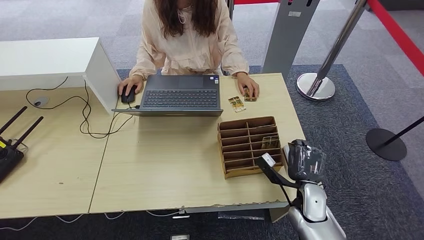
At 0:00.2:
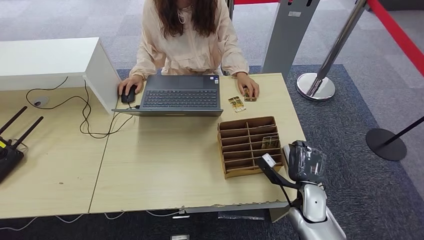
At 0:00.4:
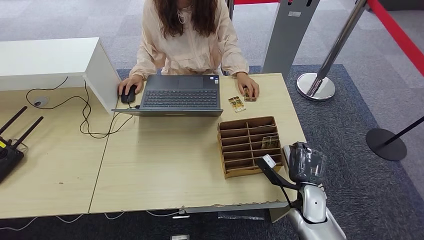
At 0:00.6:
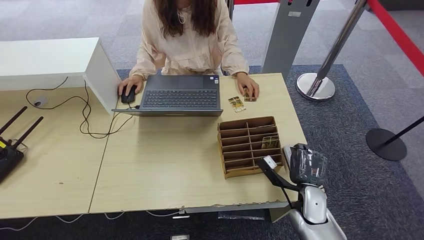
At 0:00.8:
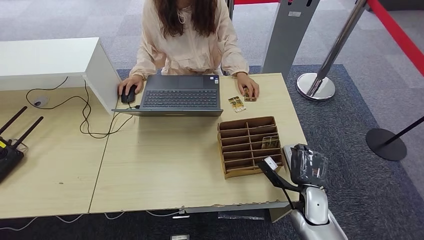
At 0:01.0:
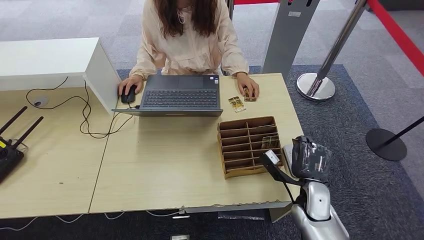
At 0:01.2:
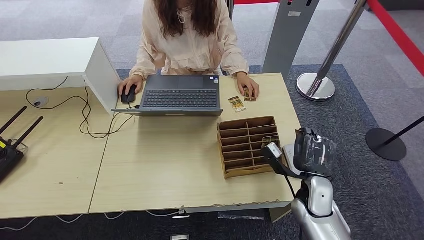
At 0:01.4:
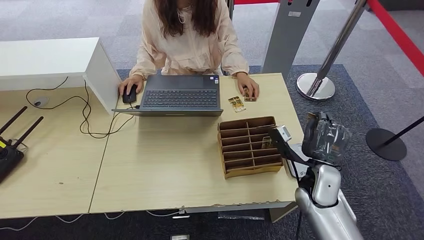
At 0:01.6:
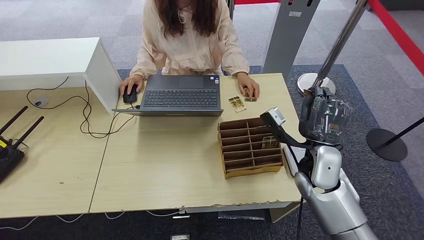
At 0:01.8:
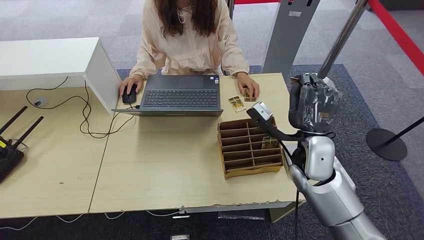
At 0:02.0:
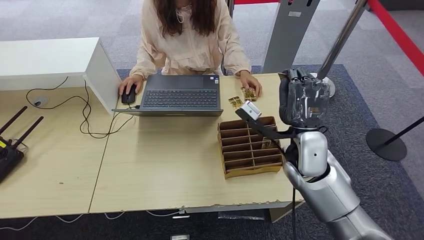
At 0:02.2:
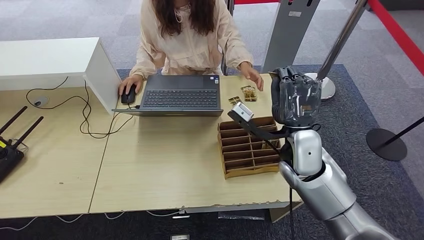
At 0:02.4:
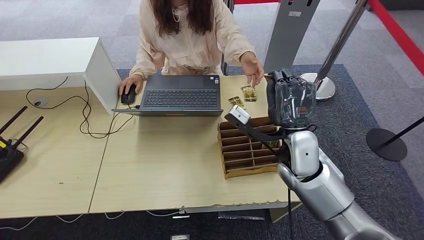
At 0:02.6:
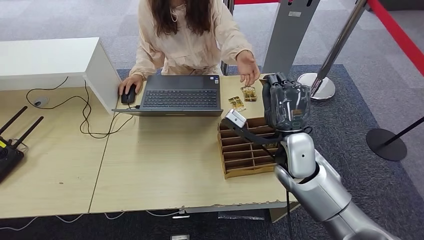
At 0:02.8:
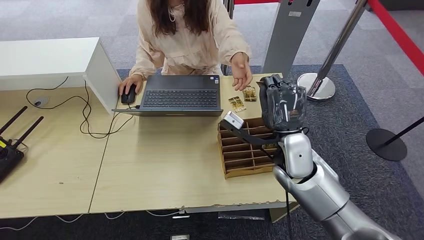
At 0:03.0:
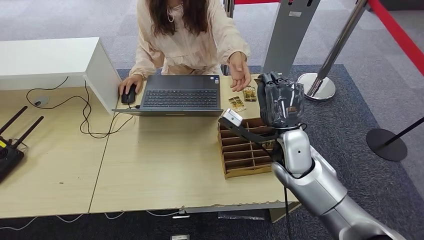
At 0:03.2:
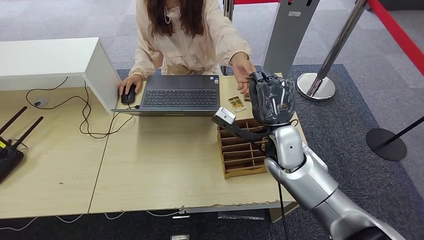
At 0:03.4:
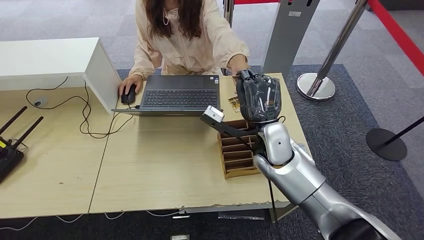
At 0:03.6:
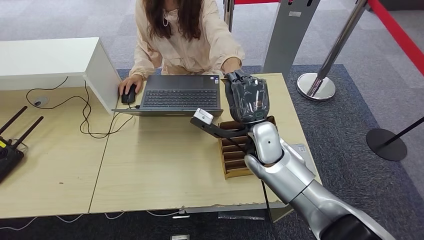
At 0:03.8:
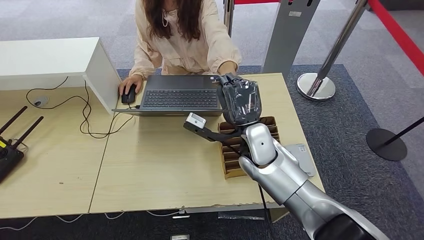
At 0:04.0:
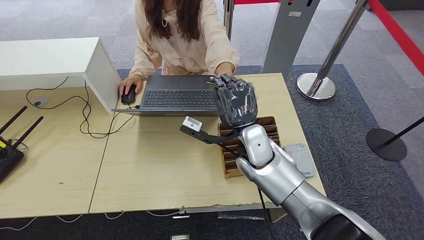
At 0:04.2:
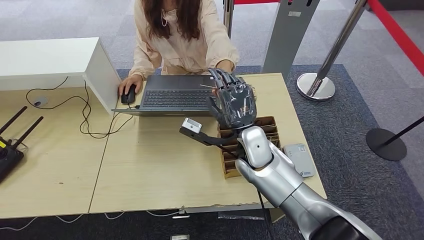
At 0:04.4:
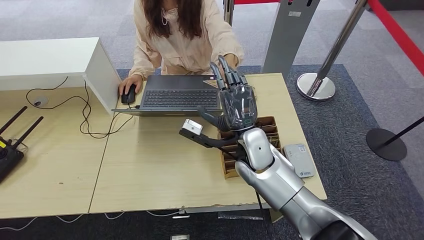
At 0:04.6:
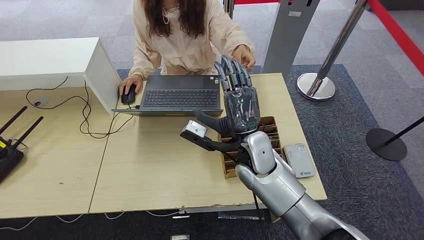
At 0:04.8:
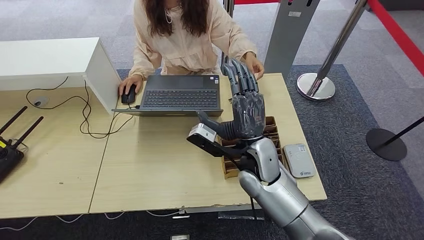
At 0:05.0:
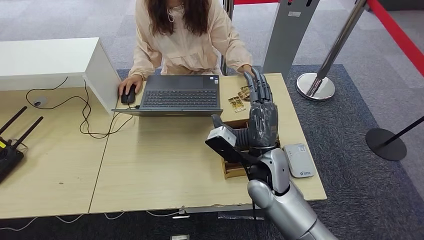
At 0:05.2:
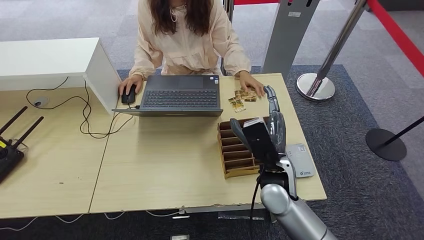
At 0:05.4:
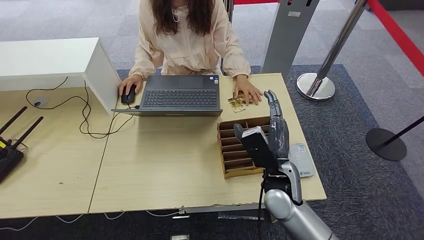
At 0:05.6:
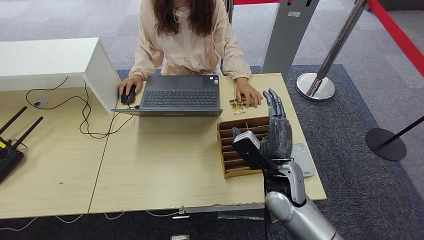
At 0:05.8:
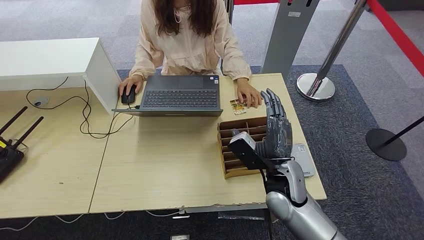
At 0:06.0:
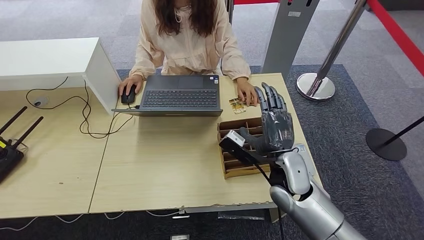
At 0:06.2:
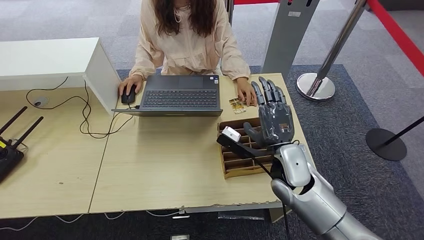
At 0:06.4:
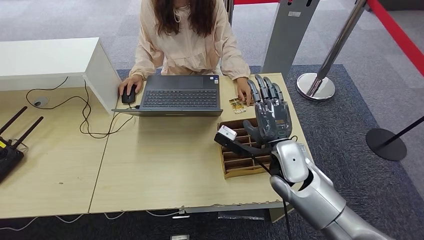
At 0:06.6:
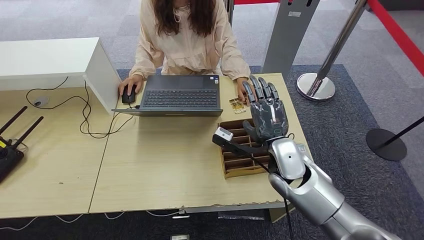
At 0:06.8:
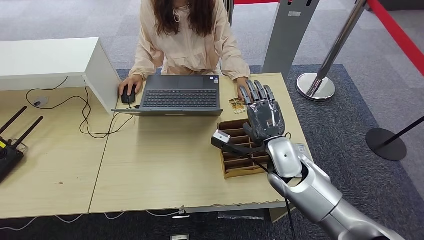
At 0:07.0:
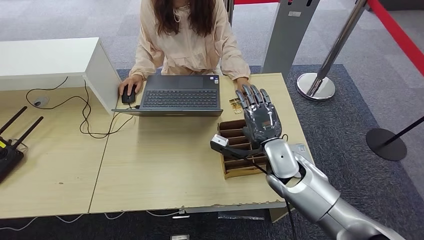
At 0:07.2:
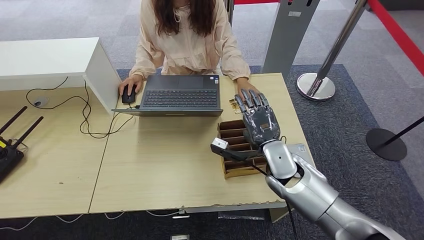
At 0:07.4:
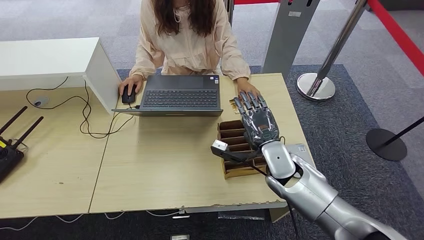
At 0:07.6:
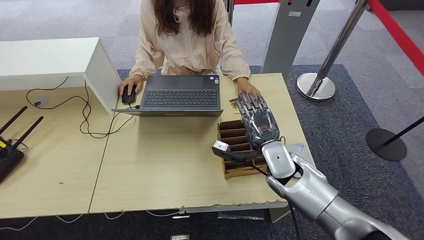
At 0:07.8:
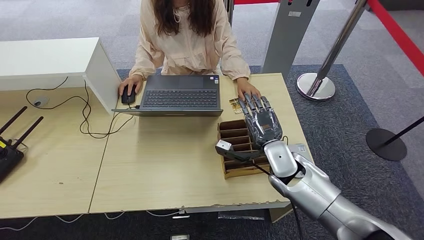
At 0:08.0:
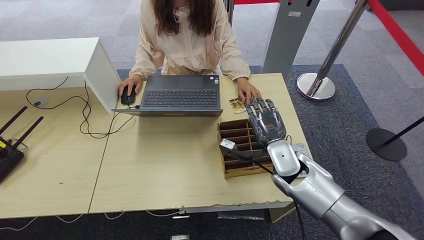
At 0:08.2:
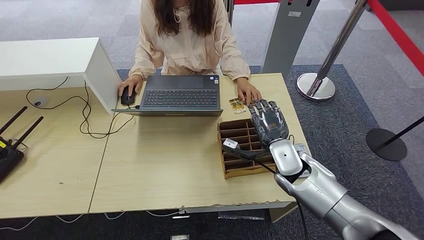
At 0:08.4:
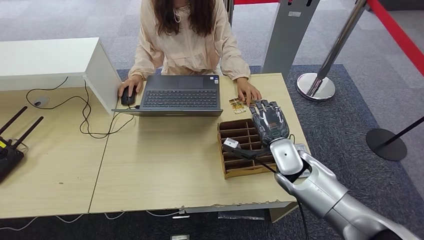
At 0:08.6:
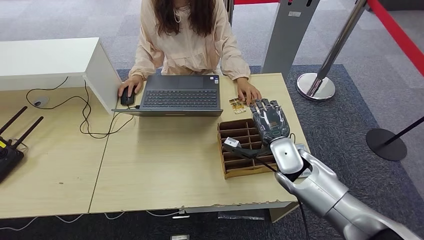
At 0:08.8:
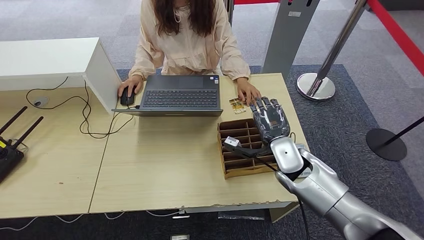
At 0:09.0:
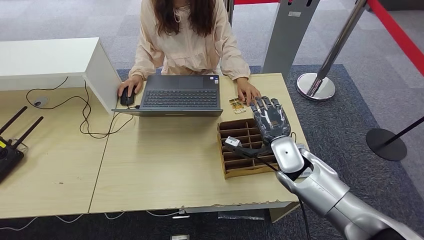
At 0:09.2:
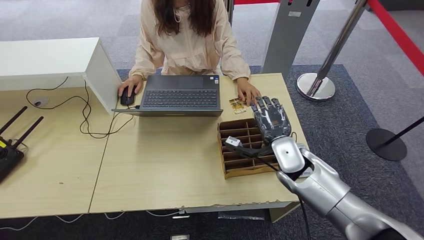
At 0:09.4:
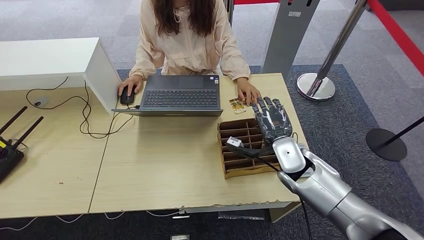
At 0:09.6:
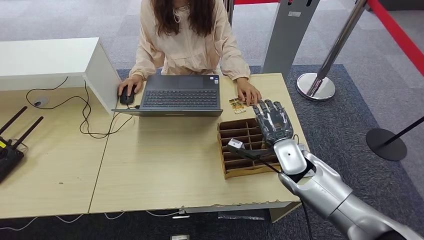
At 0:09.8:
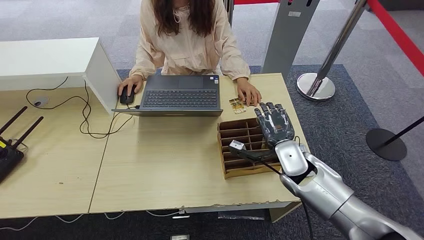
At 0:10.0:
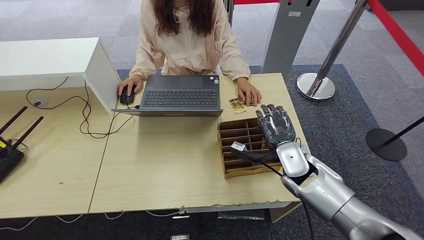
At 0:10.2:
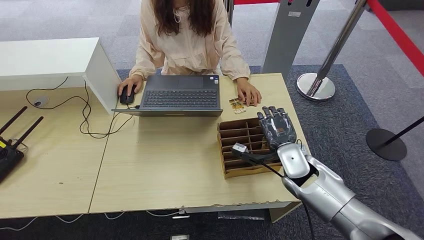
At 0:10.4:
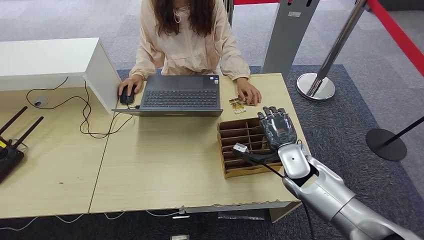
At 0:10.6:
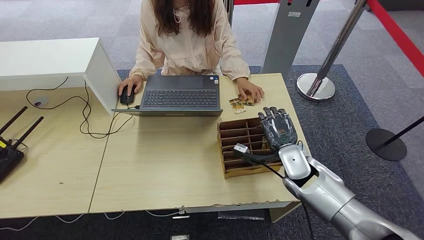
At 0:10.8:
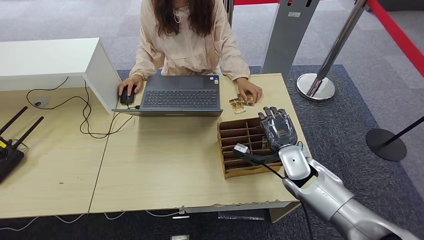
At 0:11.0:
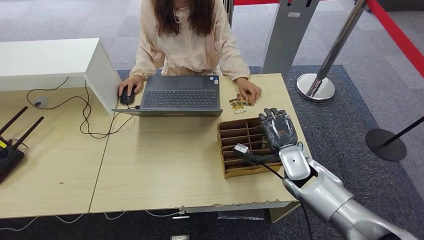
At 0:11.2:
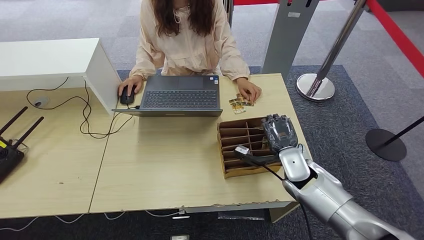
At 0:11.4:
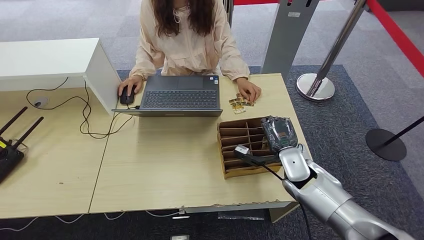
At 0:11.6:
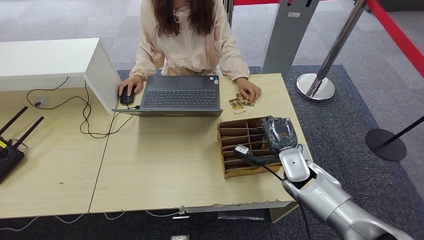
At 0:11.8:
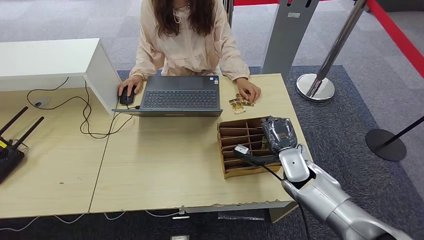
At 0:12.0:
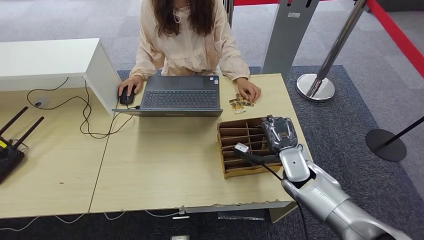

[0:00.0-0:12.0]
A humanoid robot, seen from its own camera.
Step, 0:00.6 to 0:05.4: Hand the ID card to the person.
0:00.0 to 0:01.6: The right hand moves upward, about 15 cm.
0:01.6 to 0:03.0: The right hand is displaced to the left by approximately 5 cm.
0:03.0 to 0:04.4: The right hand is displaced to the left by approximately 10 cm.
0:04.4 to 0:06.0: The right hand shifts some 10 cm to the right and backward.
0:07.6 to 0:10.4: The hands move only a little.
0:10.4 to 0:12.0: The hands move only a little.

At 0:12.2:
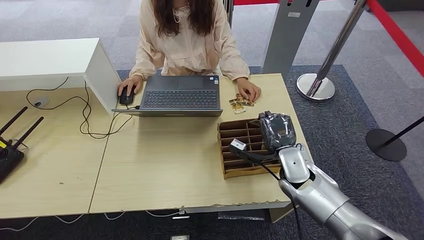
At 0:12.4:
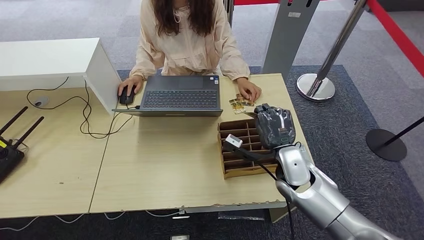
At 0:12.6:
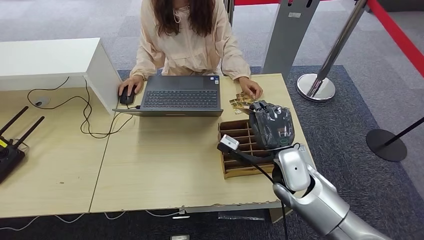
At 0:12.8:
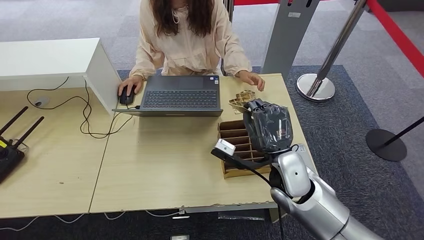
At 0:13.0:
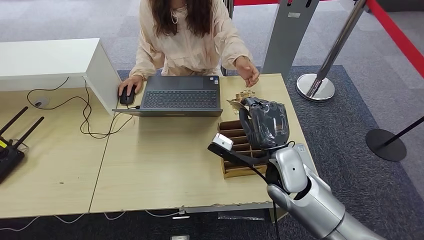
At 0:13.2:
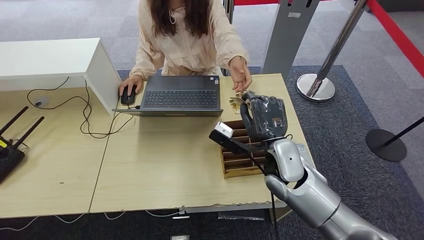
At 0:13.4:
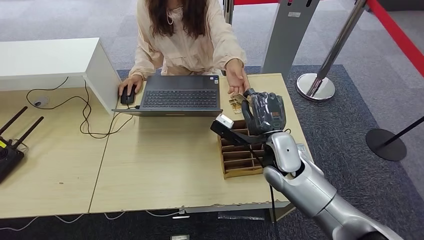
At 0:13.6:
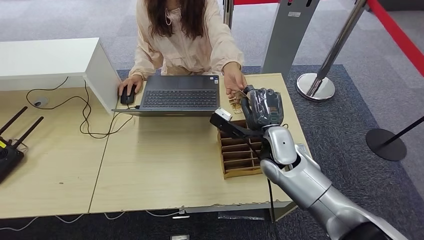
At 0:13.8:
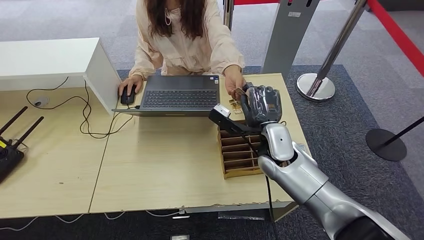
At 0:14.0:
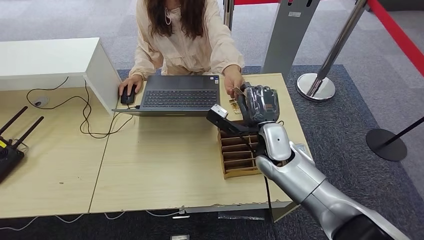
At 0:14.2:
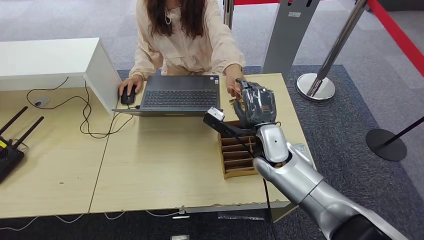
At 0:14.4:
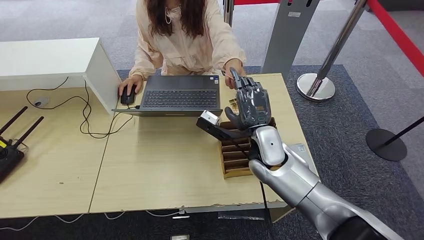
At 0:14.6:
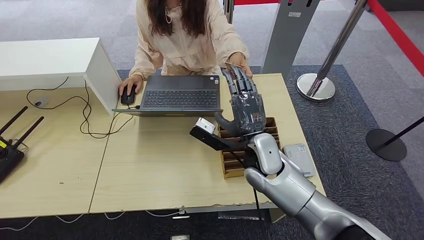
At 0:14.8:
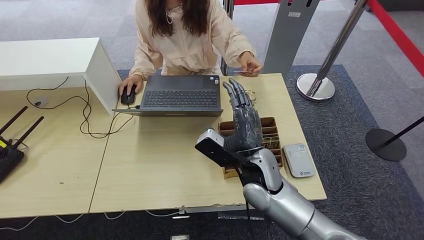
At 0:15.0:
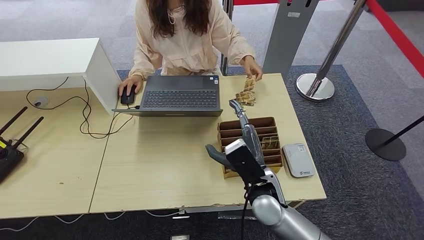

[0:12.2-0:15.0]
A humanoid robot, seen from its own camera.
Step, 0:12.4 to 0:15.0: Hand the room key to the person.
0:12.2 to 0:13.6: The right hand goes about 10 cm upward and to the left.
0:13.6 to 0:15.0: The right hand moves backward, some 10 cm.
